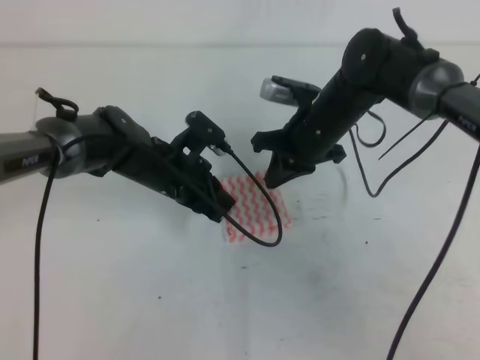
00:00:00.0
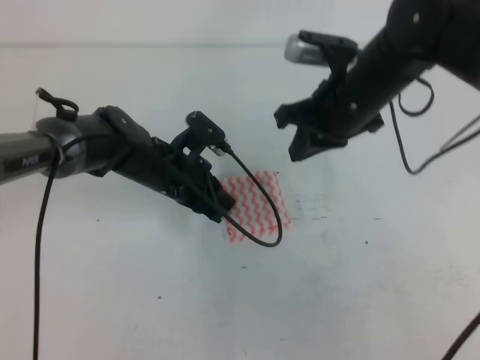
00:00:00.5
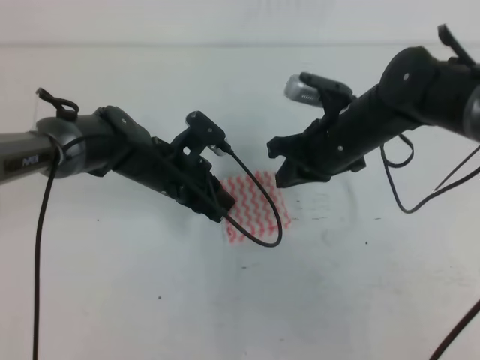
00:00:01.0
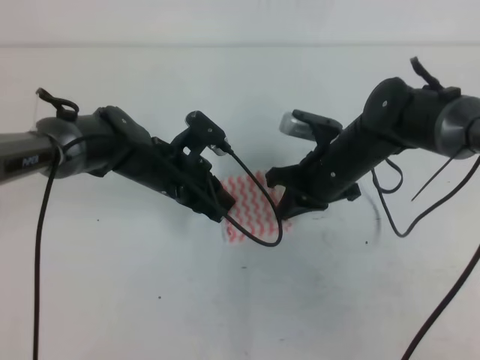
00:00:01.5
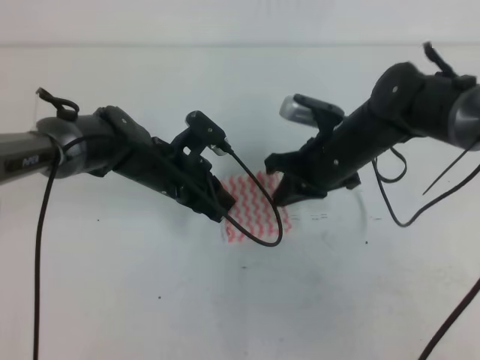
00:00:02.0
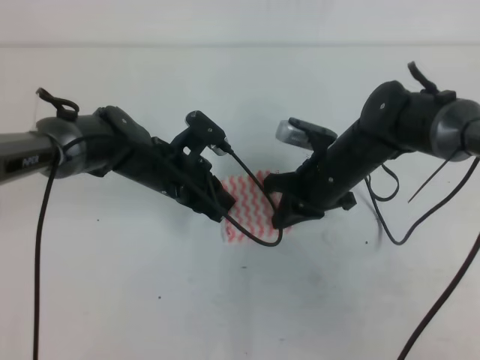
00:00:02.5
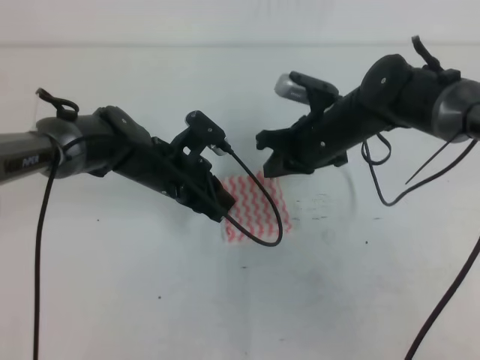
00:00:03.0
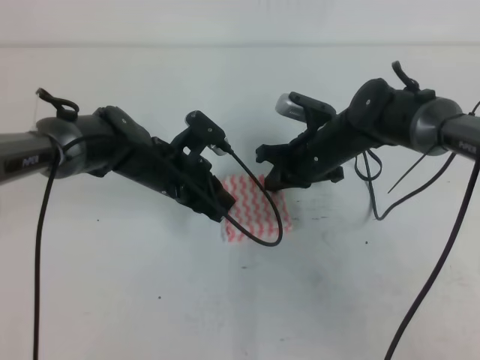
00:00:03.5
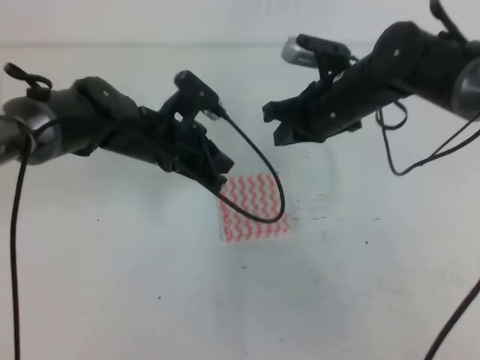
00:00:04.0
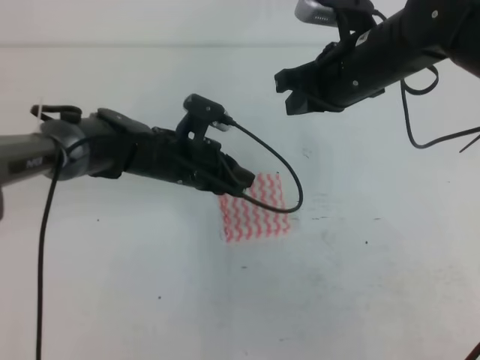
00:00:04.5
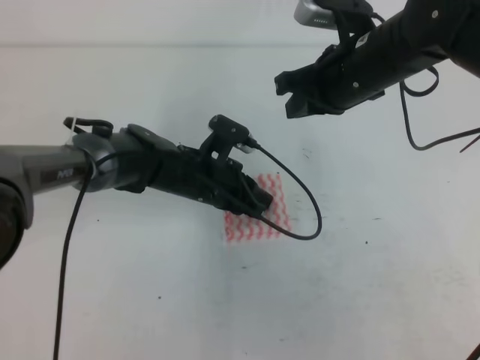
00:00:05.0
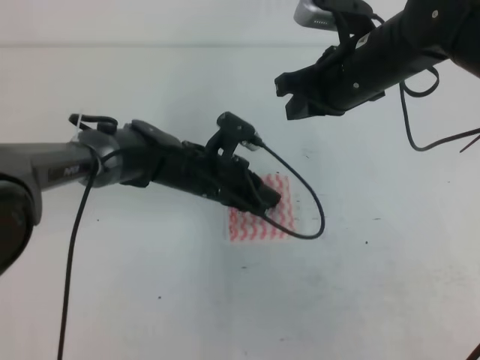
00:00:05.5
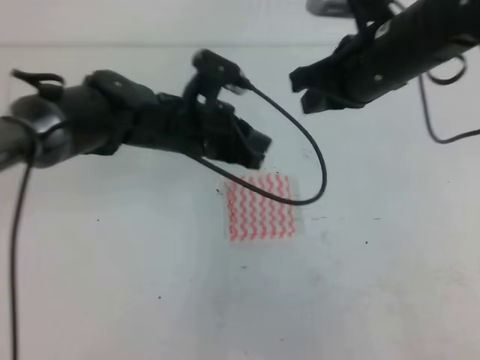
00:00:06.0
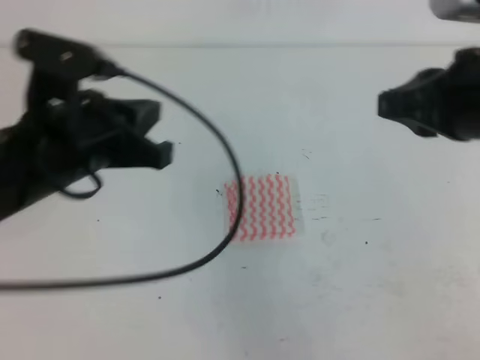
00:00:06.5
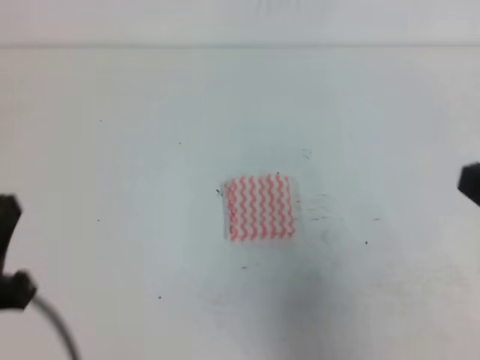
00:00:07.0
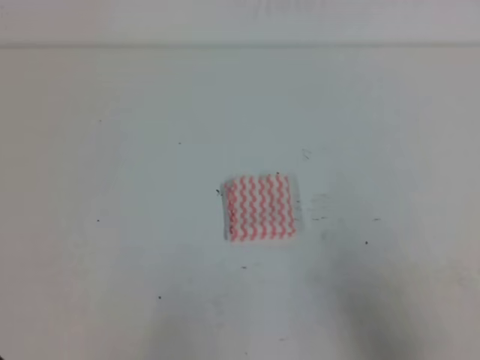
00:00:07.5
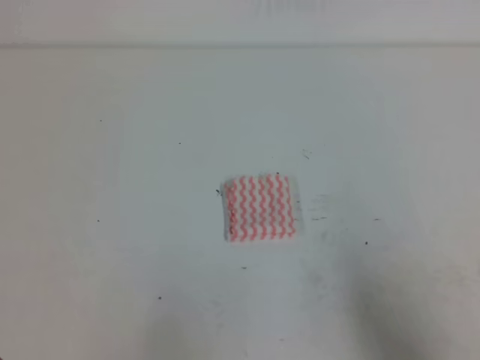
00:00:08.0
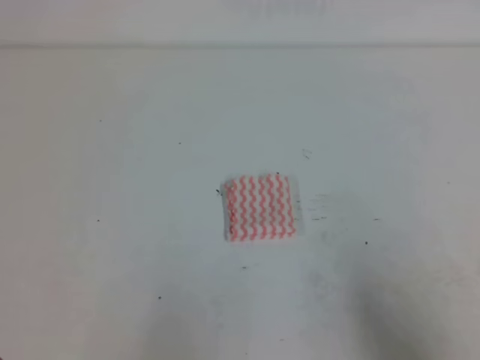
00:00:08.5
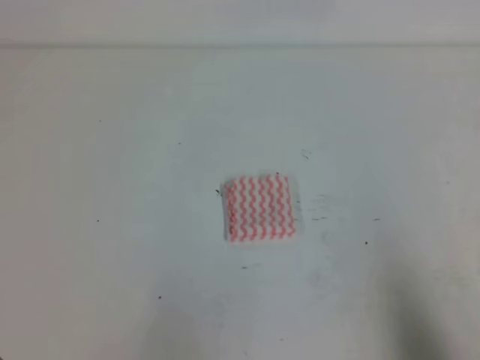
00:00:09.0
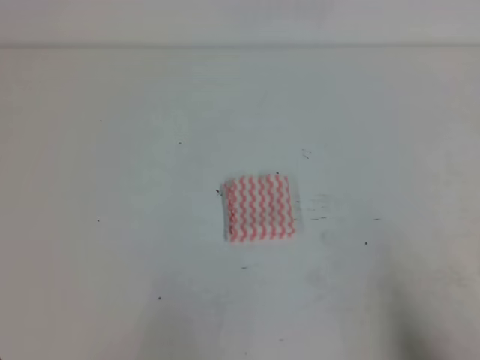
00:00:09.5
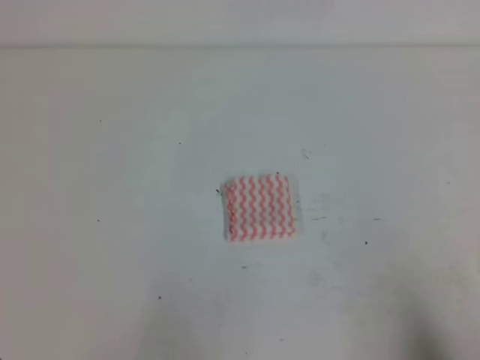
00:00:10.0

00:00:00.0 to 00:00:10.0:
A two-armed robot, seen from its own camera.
00:00:00.0 to 00:00:02.0: The right gripper moves roughly 5 cm upward and comes back.
00:00:02.0 to 00:00:04.0: The right gripper heads upward, covering some 5 cm.
00:00:04.0 to 00:00:06.0: The left gripper shifts by roughly 5 cm. Meanwhile the right gripper shifts some 10 cm upward and backward.
00:00:06.0 to 00:00:08.0: The left gripper travels backward and to the left by roughly 35 cm; the right gripper goes approximately 30 cm backward, to the right and downward.
00:00:08.0 to 00:00:10.0: The right gripper shifts by roughly 5 cm.
